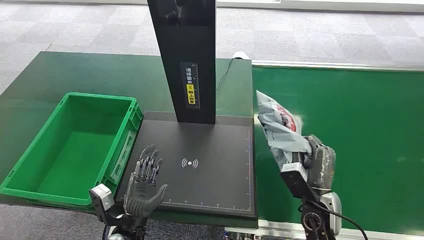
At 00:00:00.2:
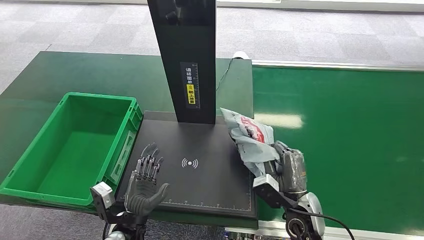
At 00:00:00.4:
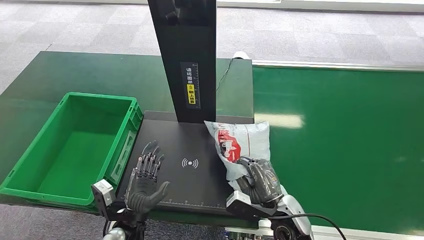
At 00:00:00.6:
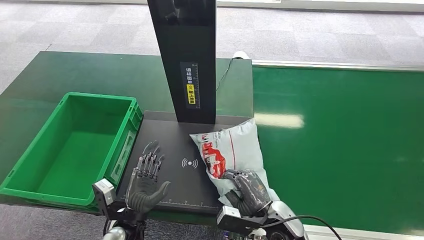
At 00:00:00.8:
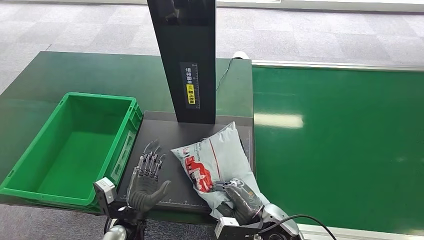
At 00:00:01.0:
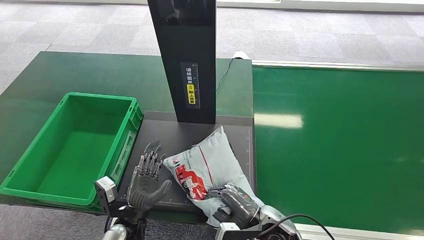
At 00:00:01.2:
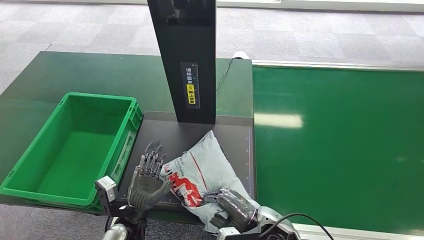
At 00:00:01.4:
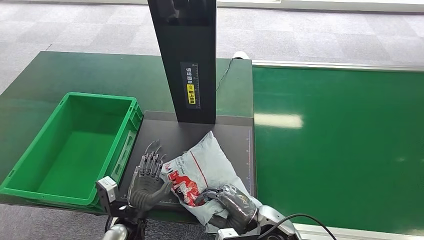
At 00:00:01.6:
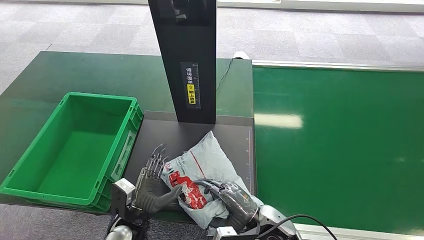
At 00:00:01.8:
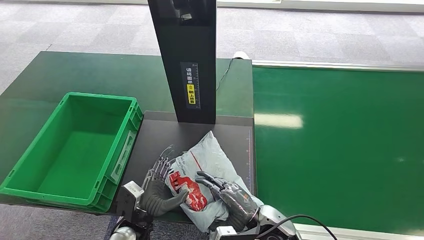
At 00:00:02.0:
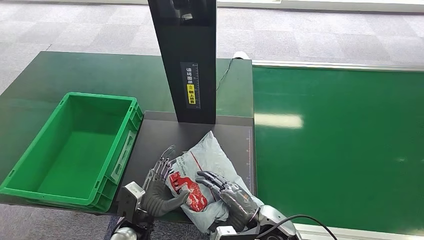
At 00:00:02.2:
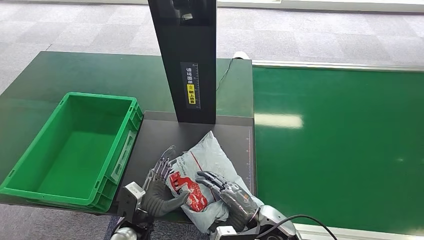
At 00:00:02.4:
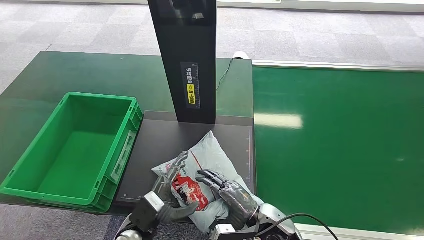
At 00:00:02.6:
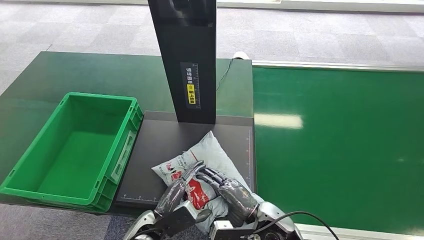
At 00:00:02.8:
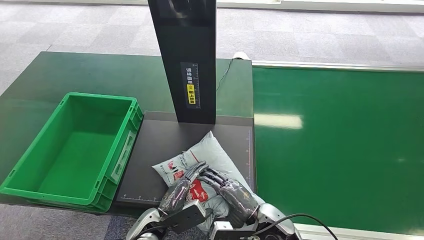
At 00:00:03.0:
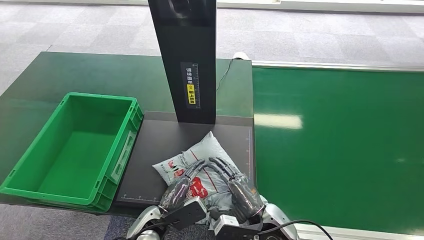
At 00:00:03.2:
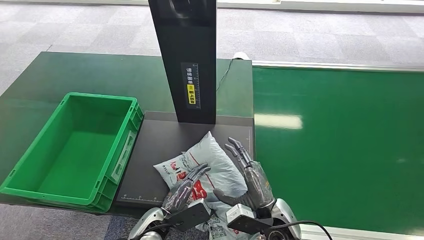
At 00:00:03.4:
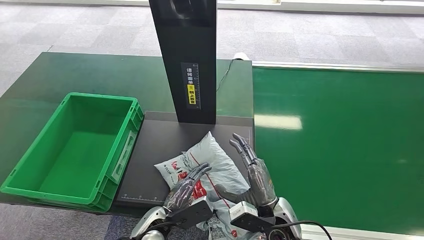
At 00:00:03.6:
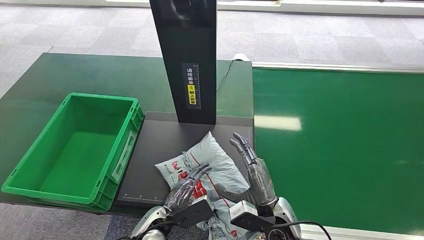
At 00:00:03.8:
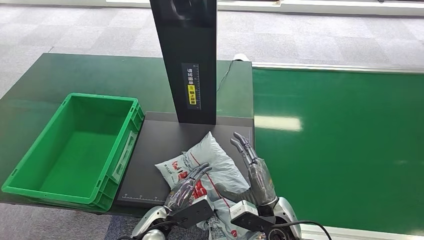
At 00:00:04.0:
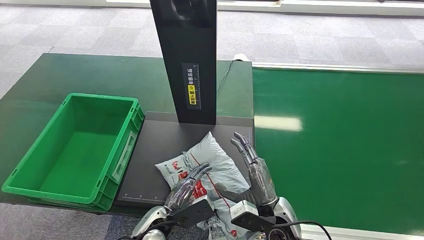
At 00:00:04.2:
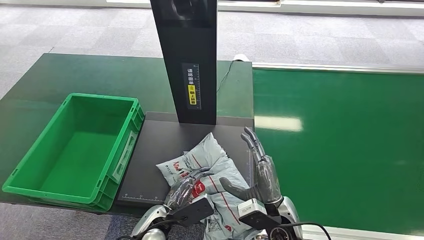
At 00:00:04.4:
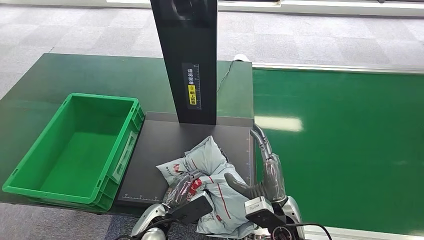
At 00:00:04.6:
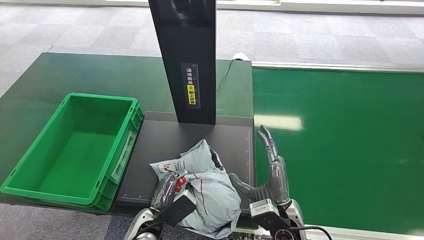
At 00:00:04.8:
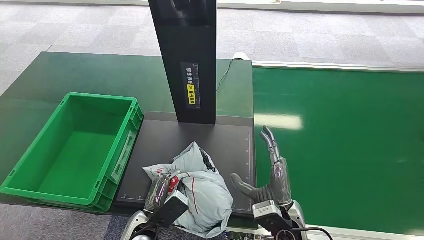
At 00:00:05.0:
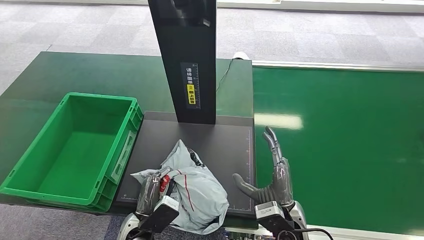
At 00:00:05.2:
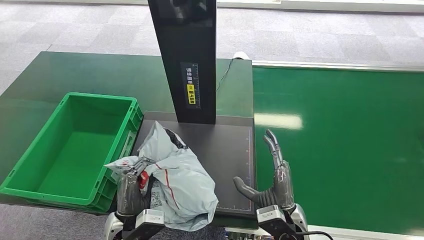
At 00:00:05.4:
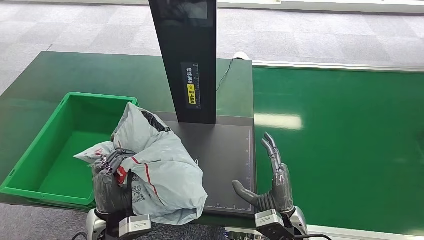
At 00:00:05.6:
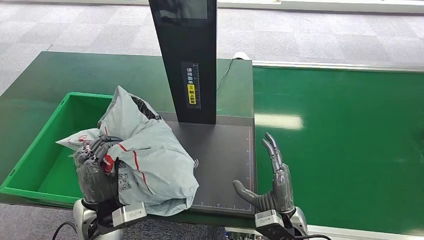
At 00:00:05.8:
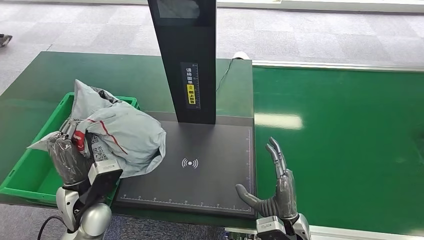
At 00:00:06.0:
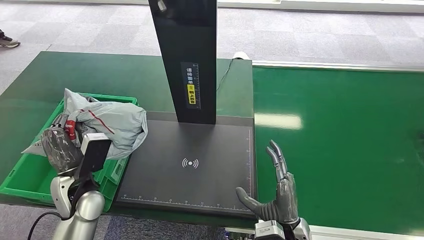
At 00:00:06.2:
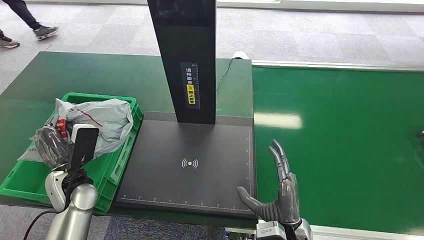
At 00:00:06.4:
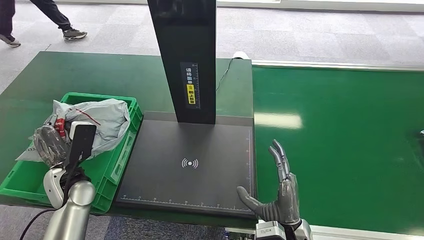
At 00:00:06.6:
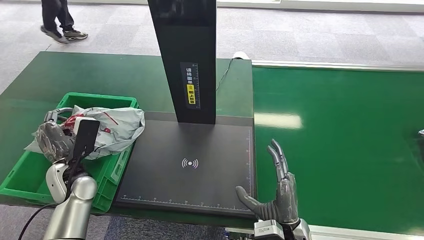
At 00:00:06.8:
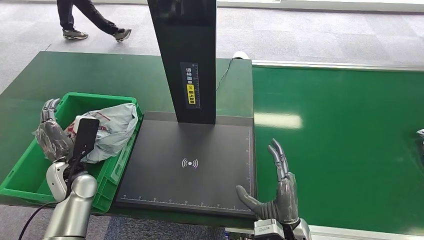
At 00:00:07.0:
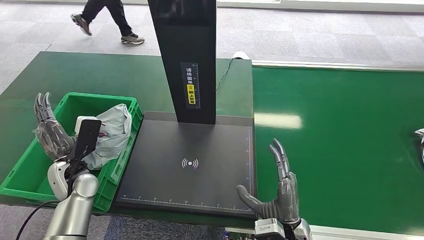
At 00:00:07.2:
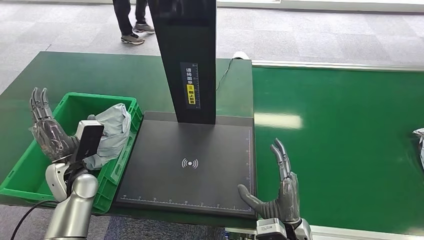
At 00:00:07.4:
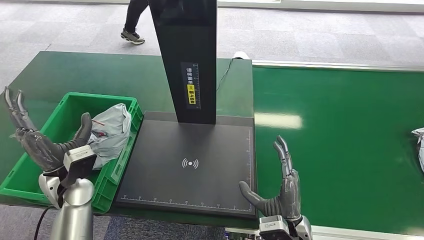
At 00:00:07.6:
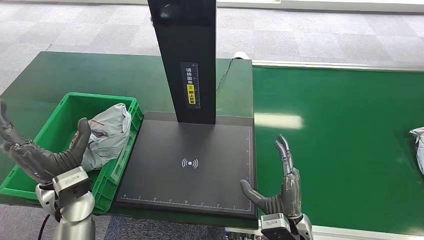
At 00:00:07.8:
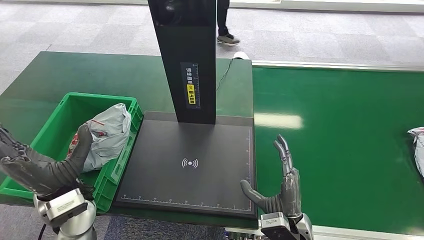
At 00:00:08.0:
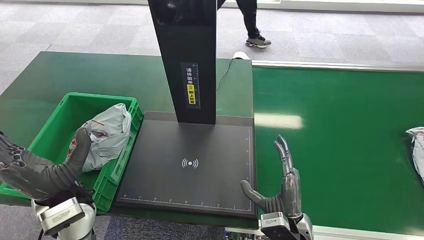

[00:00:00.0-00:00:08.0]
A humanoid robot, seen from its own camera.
Step, 00:00:07.8 to 00:00:08.0: Place the package into the parcel locker.
00:00:03.2 to 00:00:04.8: The hands make only small movements.
00:00:06.4 to 00:00:08.0: The left hand shifts roughly 15 cm to the right, upward and backward.
